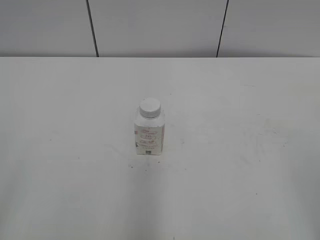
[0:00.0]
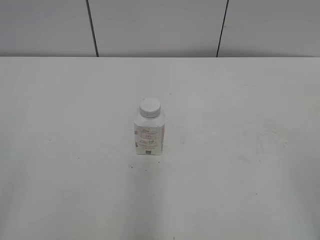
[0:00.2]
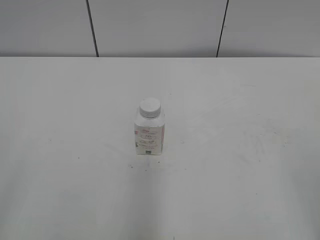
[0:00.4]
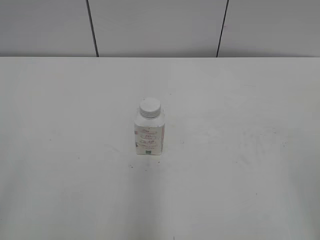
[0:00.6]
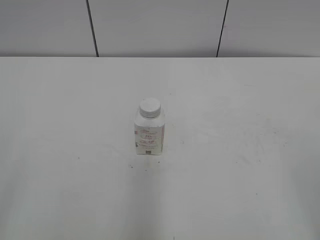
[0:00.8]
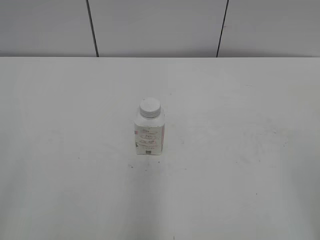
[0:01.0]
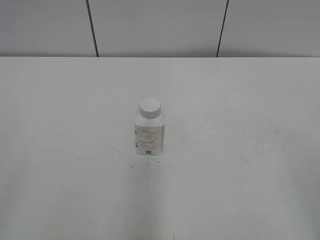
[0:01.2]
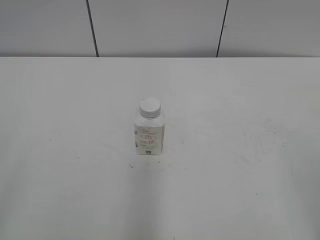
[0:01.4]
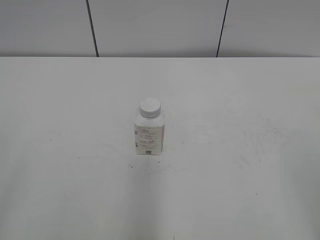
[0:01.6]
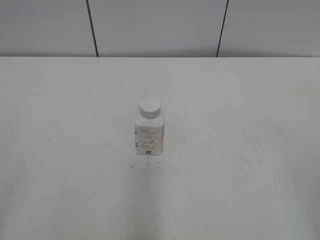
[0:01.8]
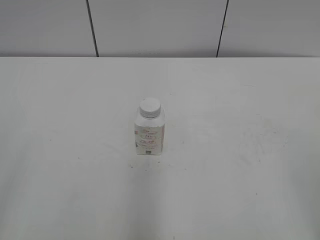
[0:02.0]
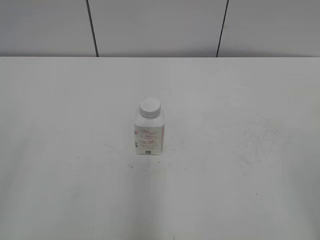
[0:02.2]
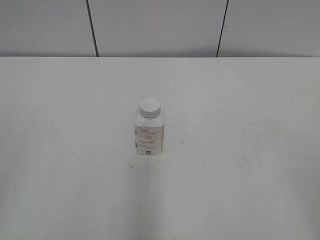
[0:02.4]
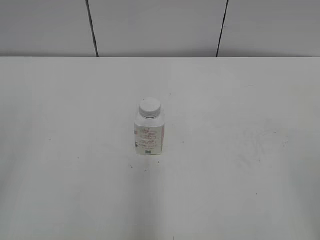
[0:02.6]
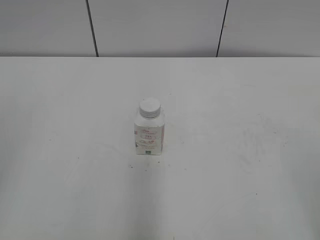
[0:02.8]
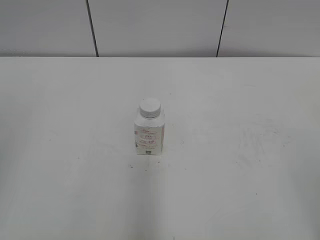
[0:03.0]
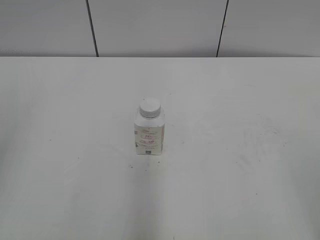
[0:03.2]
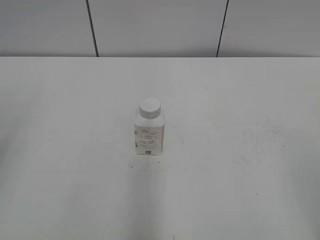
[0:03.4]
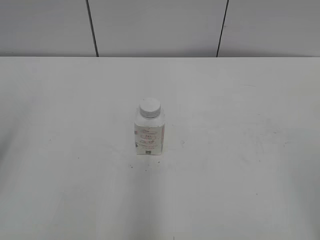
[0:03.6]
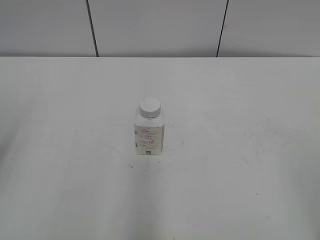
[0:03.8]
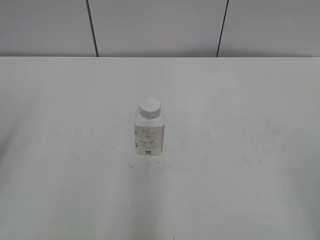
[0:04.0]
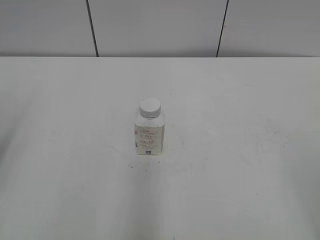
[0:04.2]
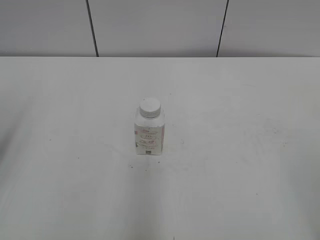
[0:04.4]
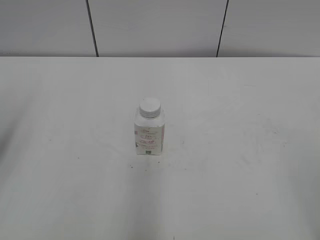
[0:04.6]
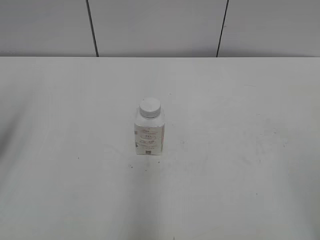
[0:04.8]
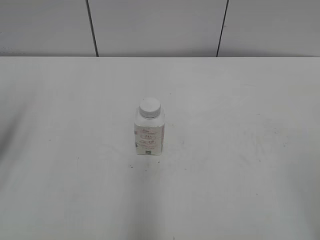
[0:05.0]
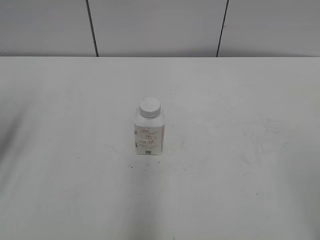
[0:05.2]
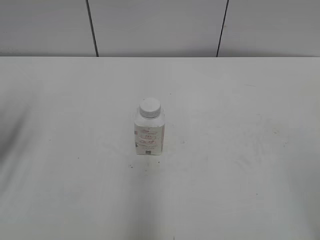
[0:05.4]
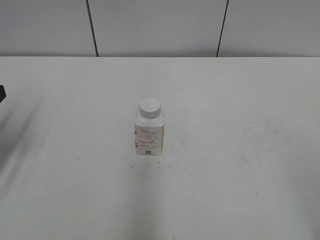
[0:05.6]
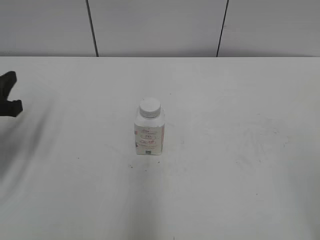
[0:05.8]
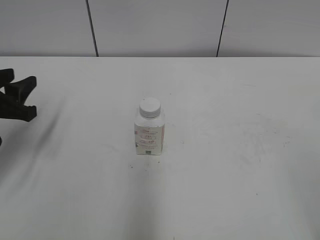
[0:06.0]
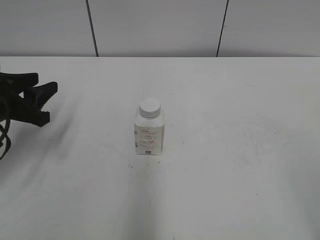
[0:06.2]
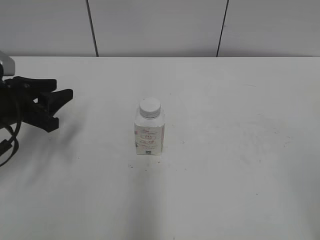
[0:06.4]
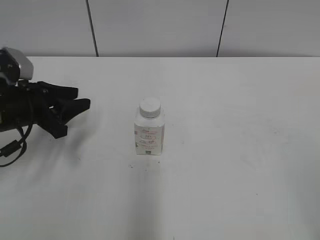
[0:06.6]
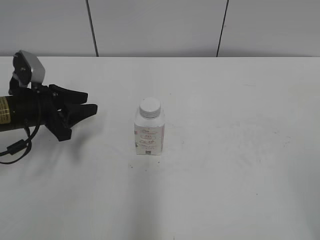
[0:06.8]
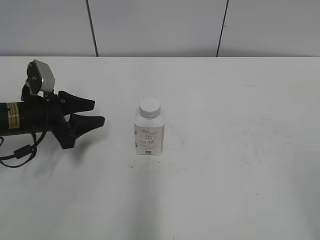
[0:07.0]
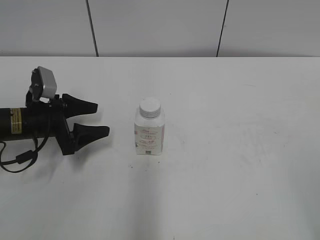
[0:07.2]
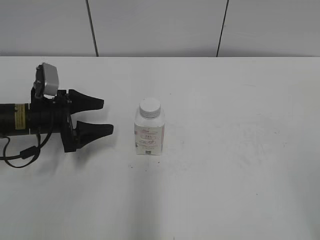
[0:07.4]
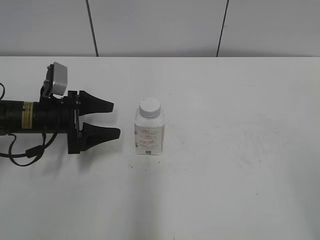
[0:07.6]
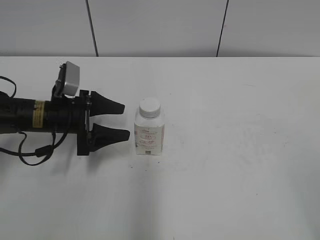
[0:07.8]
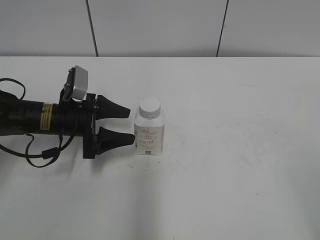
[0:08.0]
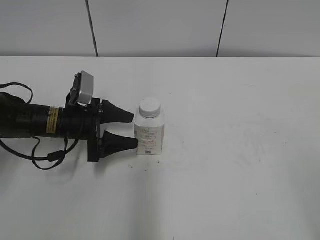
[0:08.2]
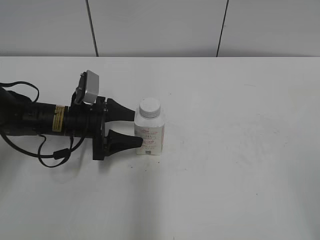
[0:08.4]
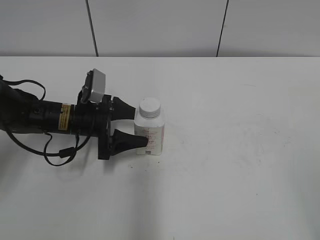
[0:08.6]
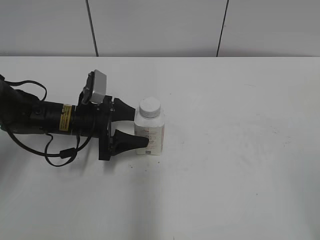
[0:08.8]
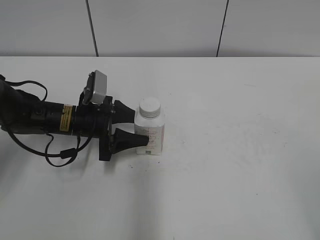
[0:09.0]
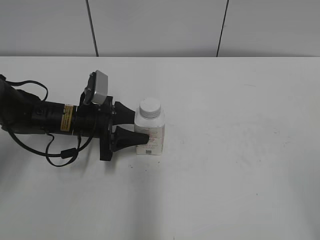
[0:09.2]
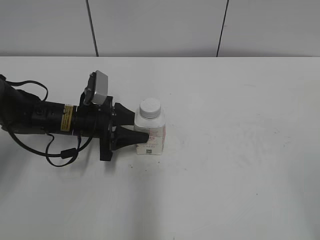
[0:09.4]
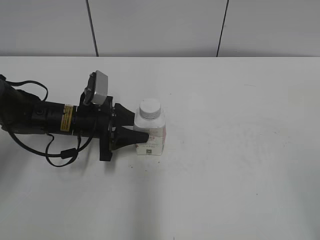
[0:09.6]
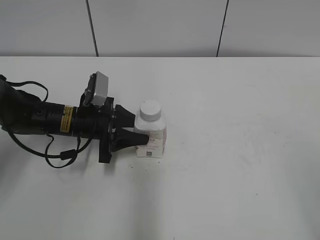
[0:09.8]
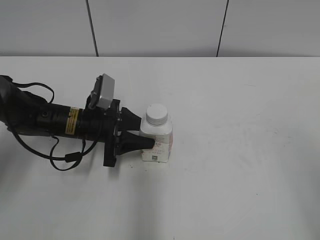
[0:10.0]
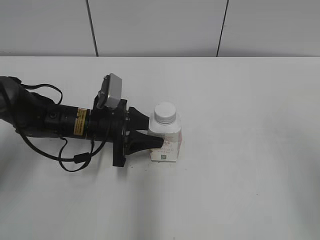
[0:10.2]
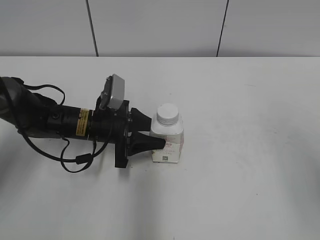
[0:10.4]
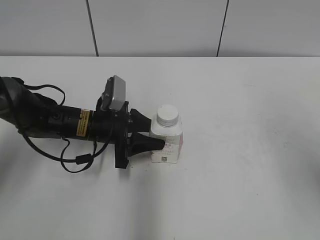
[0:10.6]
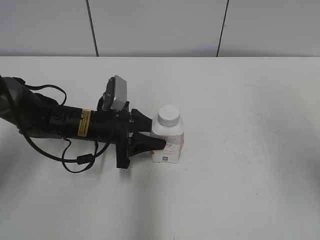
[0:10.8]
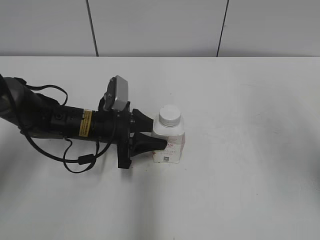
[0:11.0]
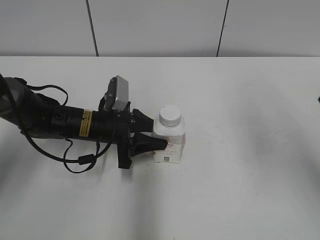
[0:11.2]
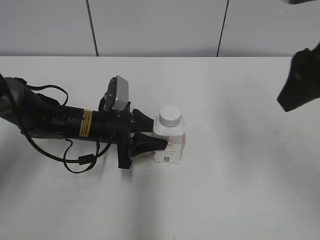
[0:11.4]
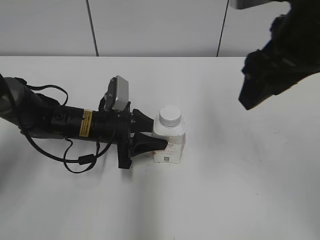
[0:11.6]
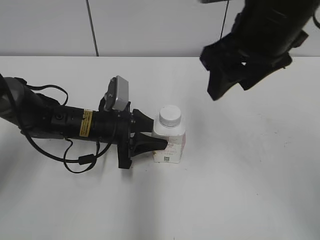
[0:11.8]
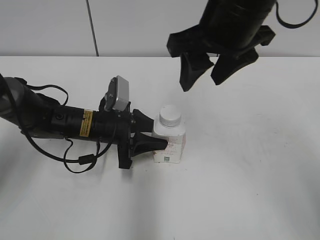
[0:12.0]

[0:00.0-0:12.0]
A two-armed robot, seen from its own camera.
Step, 0:00.0 to 0:09.4: Grasp the bottle and move it to the center of the table with the left gripper.
Step, 0:09.6 to 0:11.0: Lift the bottle and move it to the center of the table with the left gripper.
0:04.4 to 0:06.0: The left gripper goes some 15 cm downward and forward.
0:06.0 to 0:07.6: The left gripper heads downward, forward and to the right, covering roughly 10 cm, and opens its fingers.
0:07.6 to 0:09.0: The left gripper goes roughly 5 cm to the right, and closes its fingers.
0:09.0 to 0:10.4: The right gripper travels forward and upward by roughly 10 cm. The left gripper closes.
0:10.4 to 0:12.0: The right gripper goes some 25 cm to the left and forward.

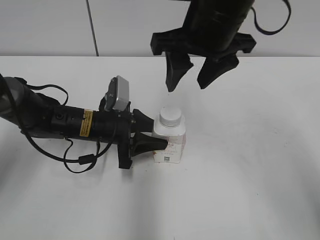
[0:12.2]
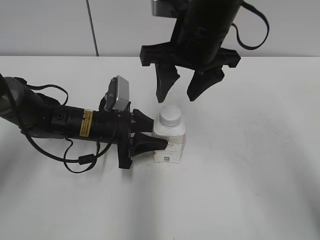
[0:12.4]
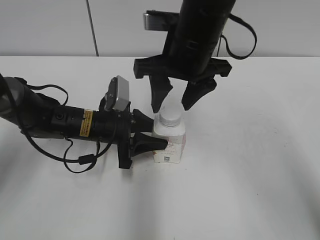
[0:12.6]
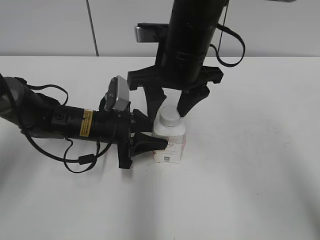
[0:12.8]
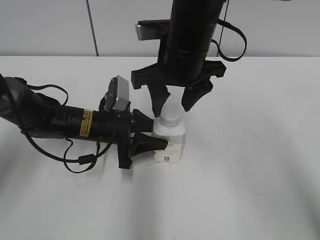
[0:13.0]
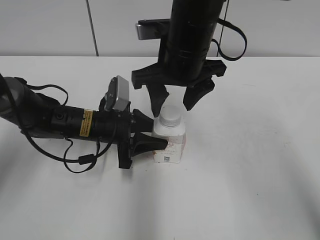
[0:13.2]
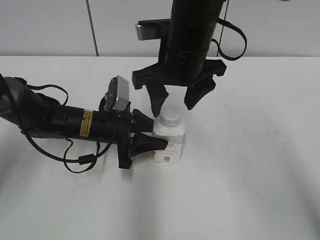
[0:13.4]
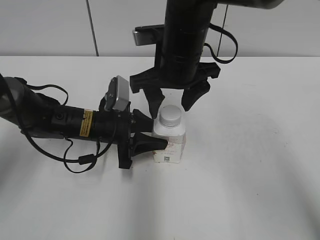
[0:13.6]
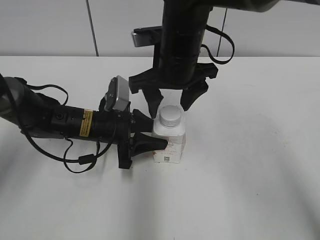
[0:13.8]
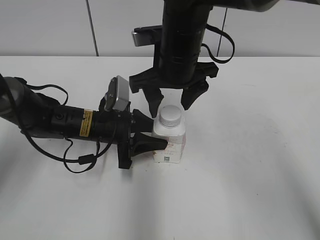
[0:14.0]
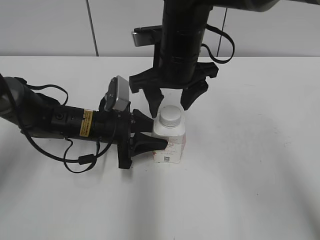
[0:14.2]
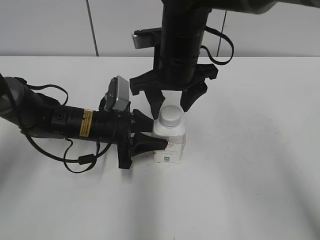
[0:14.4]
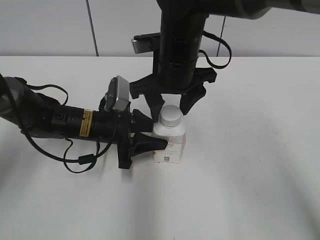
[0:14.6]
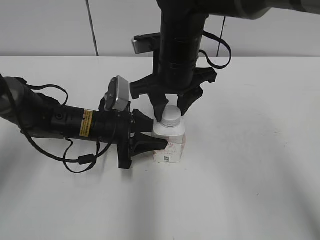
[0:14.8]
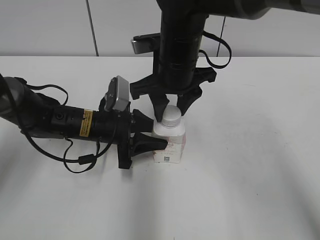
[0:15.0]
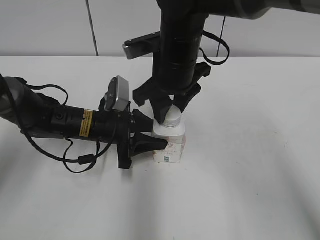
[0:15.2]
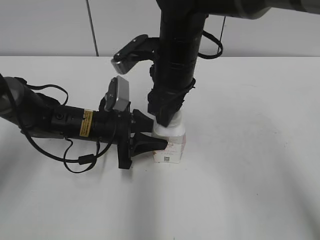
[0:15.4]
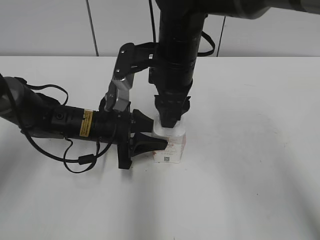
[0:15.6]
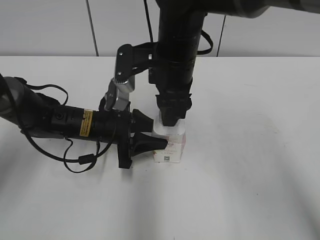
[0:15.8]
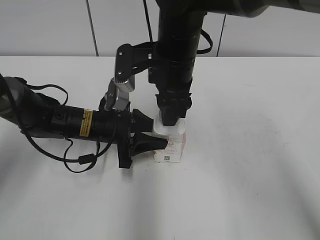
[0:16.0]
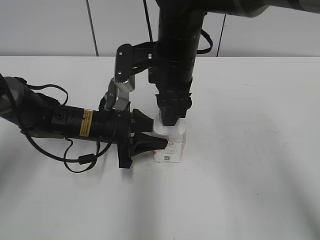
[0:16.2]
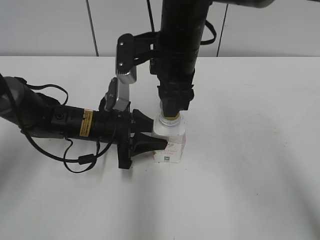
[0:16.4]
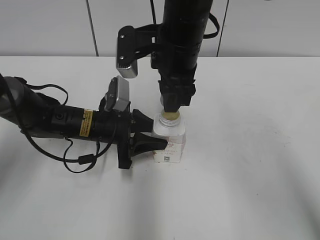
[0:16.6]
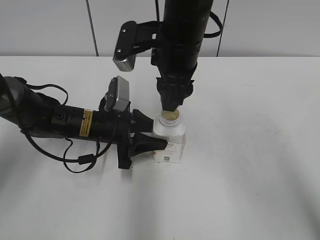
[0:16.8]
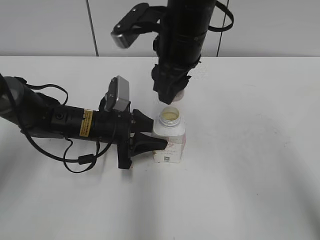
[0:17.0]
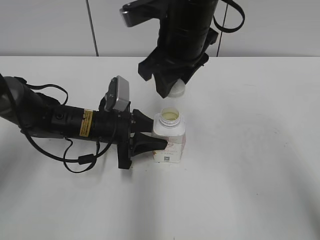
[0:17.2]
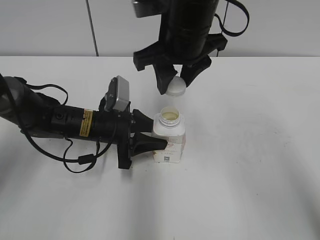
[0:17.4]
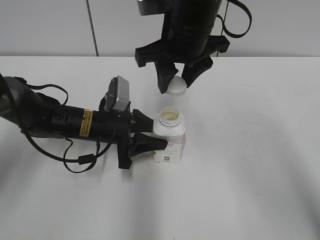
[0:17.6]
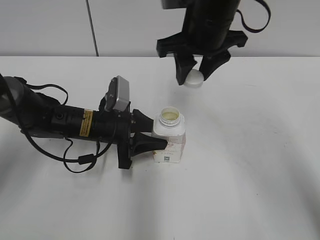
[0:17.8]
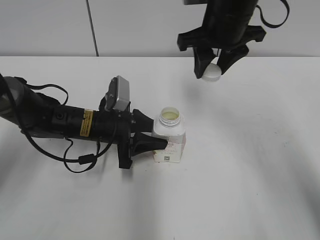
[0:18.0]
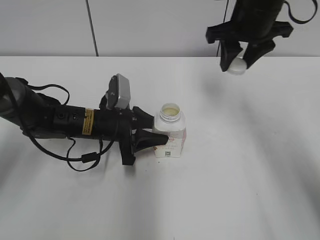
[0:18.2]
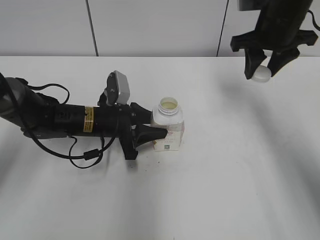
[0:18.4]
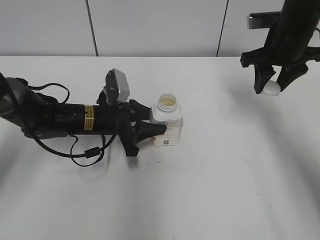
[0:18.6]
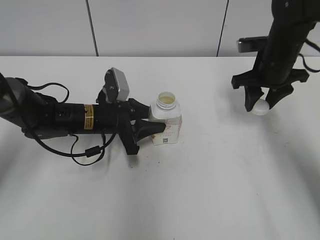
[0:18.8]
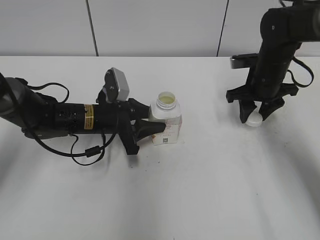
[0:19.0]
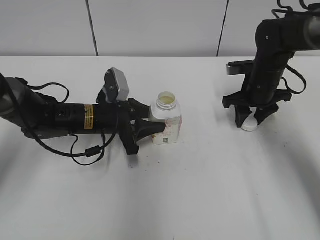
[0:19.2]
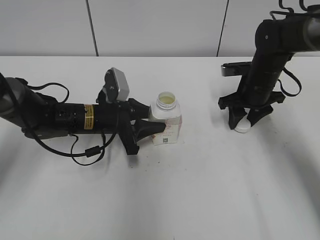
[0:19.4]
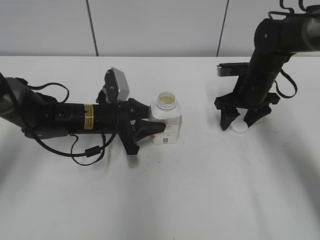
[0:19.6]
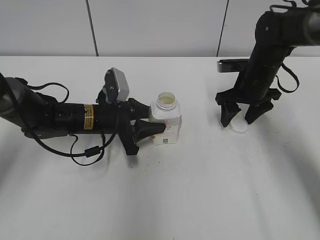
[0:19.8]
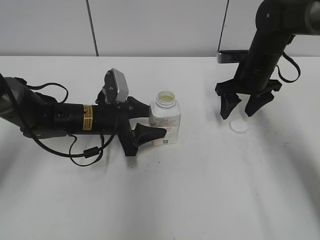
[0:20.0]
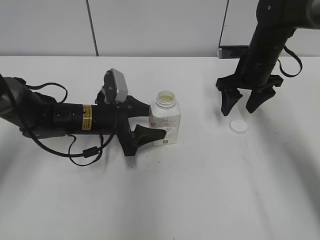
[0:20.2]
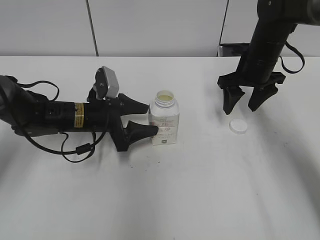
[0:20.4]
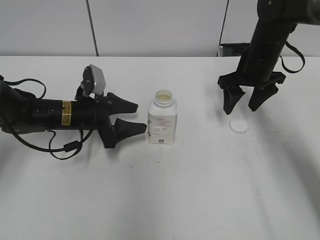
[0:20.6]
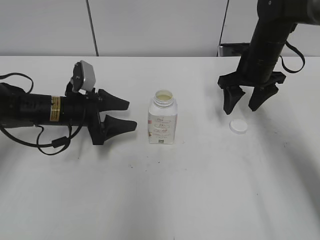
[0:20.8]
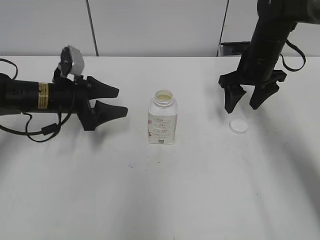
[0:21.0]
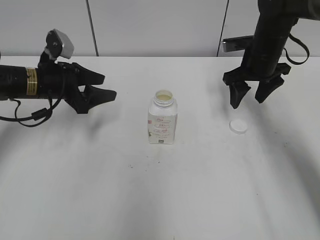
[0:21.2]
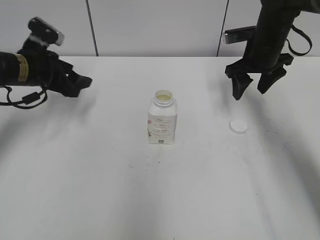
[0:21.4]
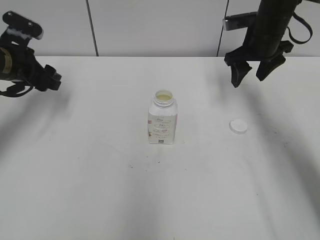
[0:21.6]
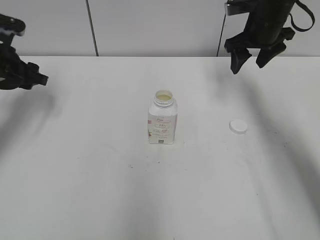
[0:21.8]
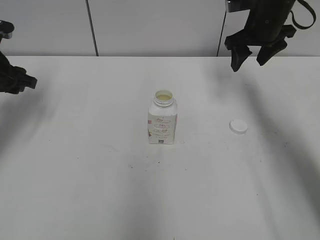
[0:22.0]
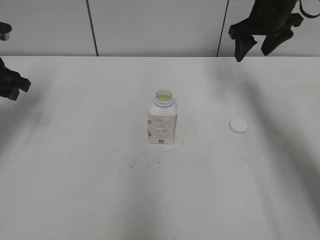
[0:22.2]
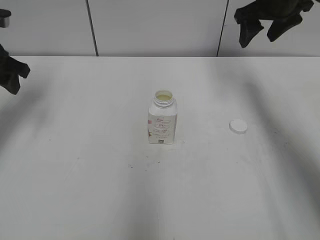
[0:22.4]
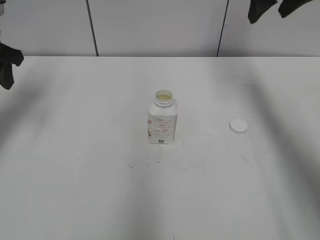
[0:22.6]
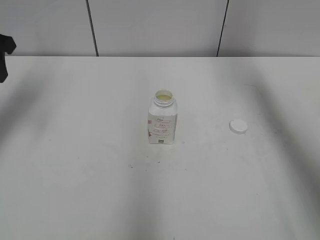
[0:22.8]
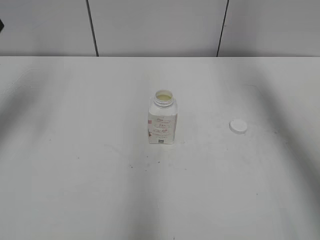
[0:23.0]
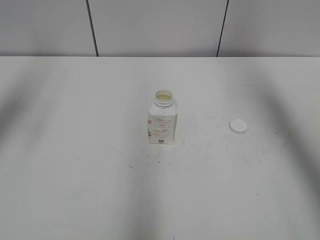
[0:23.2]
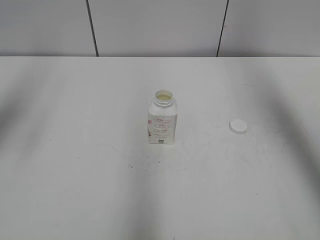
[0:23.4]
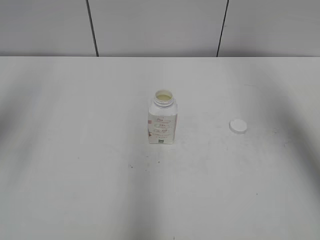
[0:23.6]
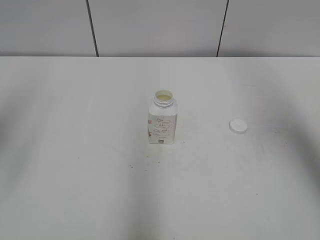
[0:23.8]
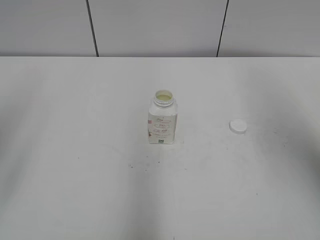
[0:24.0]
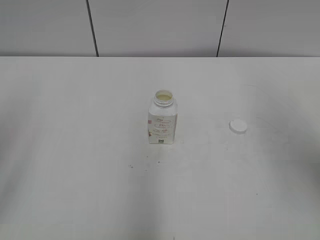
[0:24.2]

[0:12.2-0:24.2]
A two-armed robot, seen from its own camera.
Step, 0:12.2 to 0:17.0: Unscrew the bottle cap with the right gripper while holding the bottle with the left gripper.
Step, 0:17.2 to 0:19.6: Place the bottle cap on the table with the right gripper.
Step, 0:19.8 to 0:20.4: Place the bottle on the table with the left gripper.
0:12.2 to 0:13.8: The right gripper moves downward, approximately 5 cm, and opens its fingers.
0:13.8 to 0:15.2: The right gripper closes its fingers.
0:16.6 to 0:18.2: The right gripper moves to the right and forward, about 15 cm.
0:18.2 to 0:19.8: The right gripper is displaced downward by about 15 cm, and opens up.
0:19.8 to 0:21.2: The left gripper heads to the left and upward, covering some 10 cm, and opens up; the right gripper shifts by about 5 cm.
0:21.2 to 0:22.6: The right gripper is displaced upward by some 15 cm, while the left gripper goes approximately 15 cm upward and to the left.
0:22.6 to 0:24.2: The grippers both shift backward by about 25 cm.
